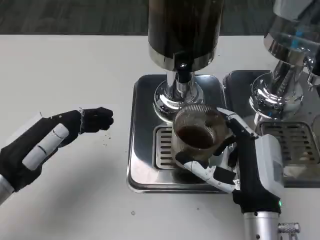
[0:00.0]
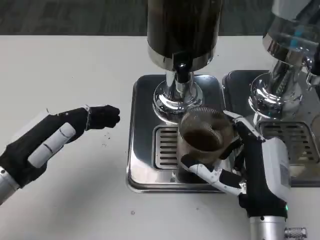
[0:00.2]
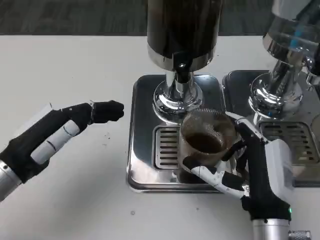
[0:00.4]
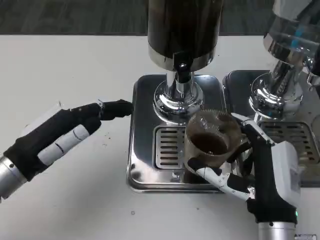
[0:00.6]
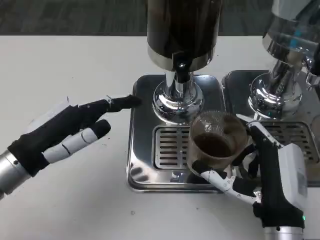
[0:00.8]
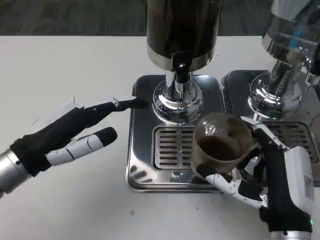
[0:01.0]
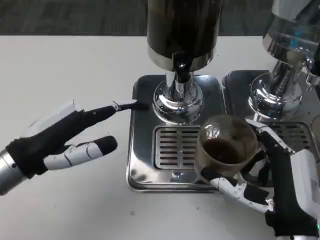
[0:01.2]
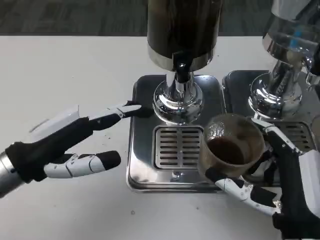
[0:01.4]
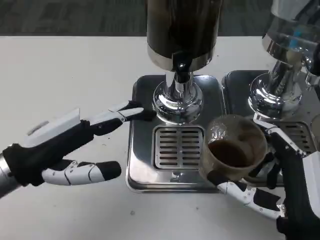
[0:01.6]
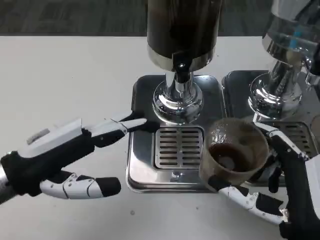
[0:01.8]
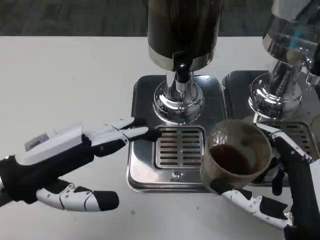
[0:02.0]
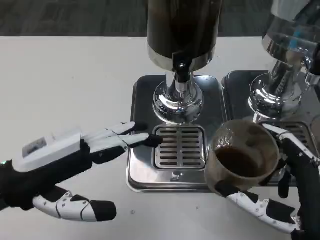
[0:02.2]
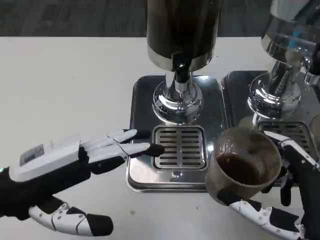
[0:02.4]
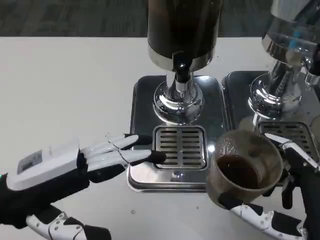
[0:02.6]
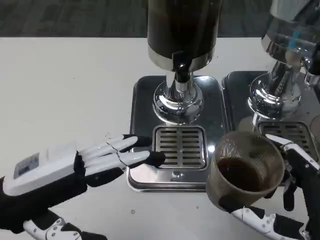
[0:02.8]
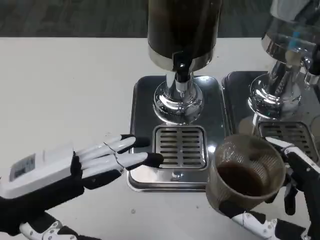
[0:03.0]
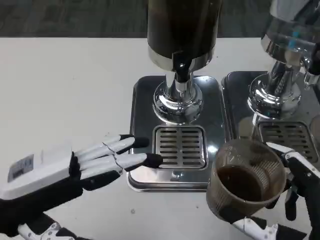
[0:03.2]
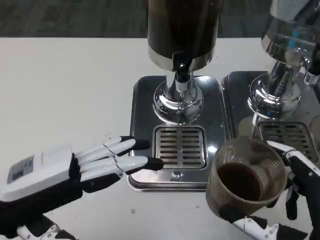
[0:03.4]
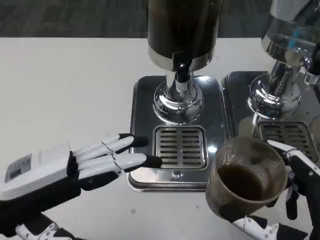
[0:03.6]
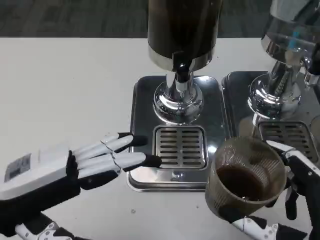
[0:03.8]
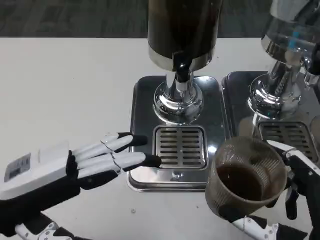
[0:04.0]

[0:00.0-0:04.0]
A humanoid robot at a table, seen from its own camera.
Task of the whole recording: Grasp the cup under the faucet to collect the drink, then remove the cup.
0:00.0 to 0:01.4: The right hand shifts by roughly 5 cm.
0:01.4 to 0:02.6: The right hand ends up approximately 5 cm from where it was.
0:02.6 to 0:04.0: The hands make only small movements.
